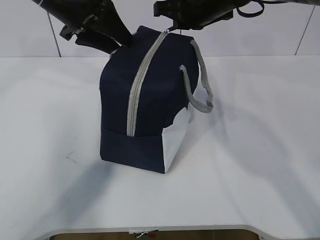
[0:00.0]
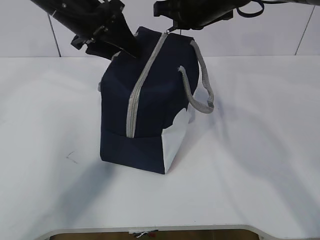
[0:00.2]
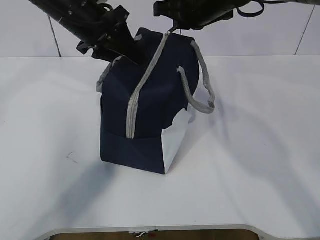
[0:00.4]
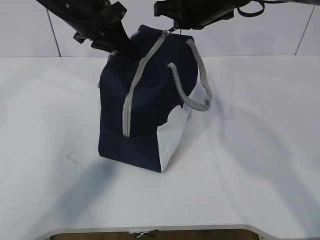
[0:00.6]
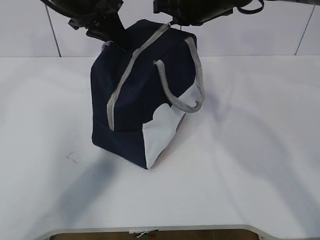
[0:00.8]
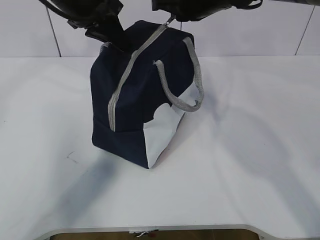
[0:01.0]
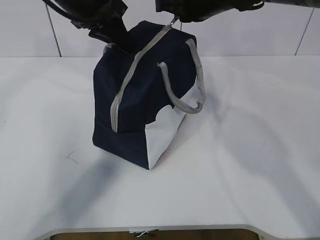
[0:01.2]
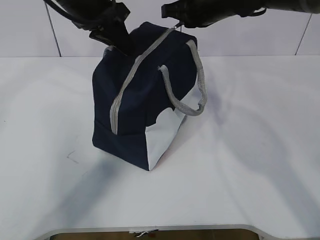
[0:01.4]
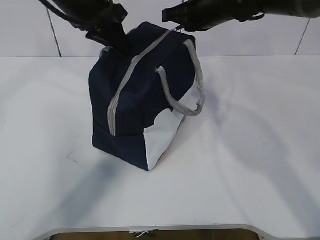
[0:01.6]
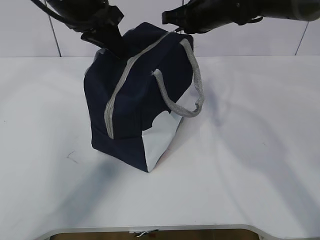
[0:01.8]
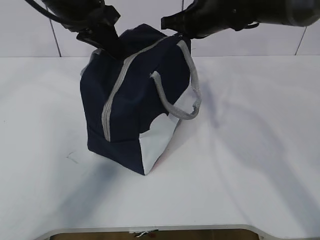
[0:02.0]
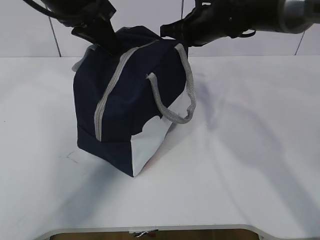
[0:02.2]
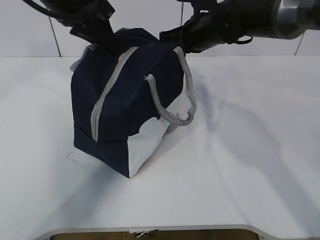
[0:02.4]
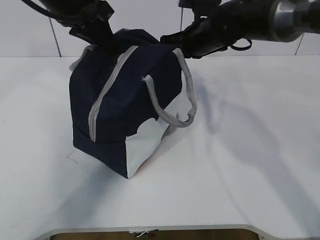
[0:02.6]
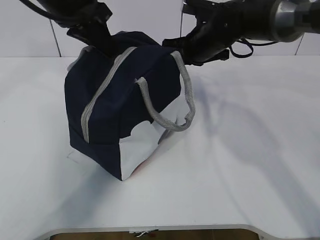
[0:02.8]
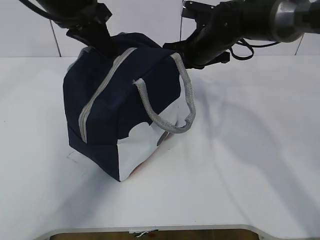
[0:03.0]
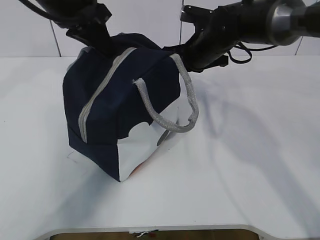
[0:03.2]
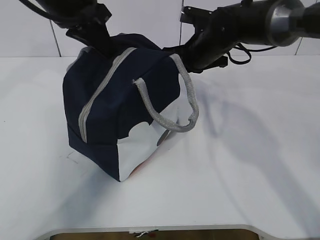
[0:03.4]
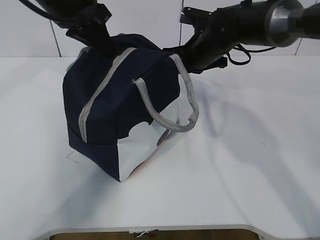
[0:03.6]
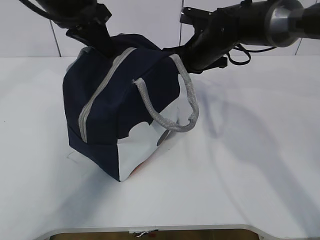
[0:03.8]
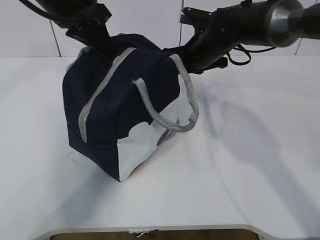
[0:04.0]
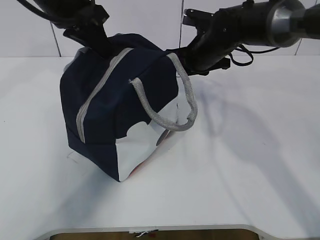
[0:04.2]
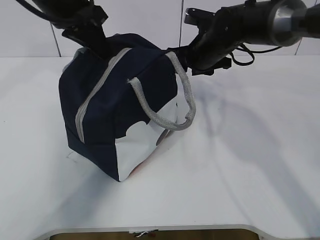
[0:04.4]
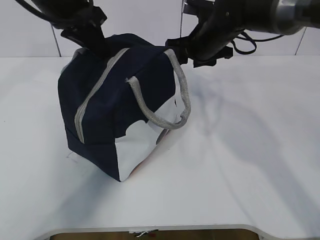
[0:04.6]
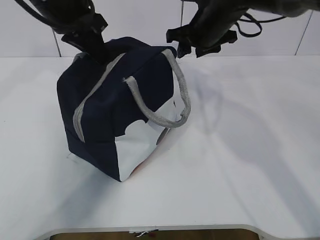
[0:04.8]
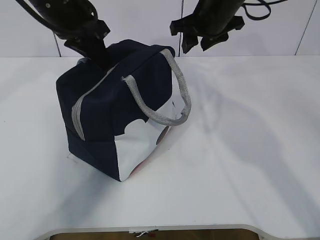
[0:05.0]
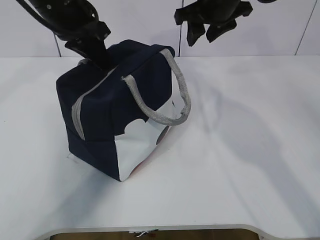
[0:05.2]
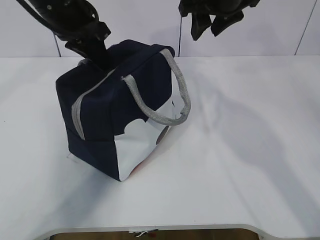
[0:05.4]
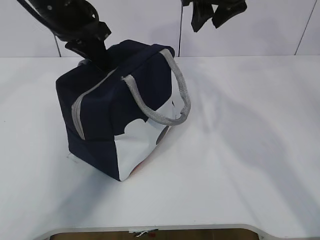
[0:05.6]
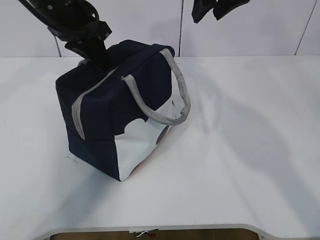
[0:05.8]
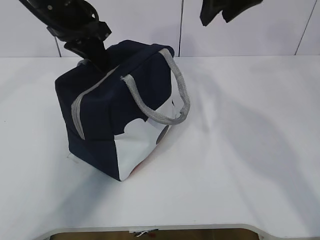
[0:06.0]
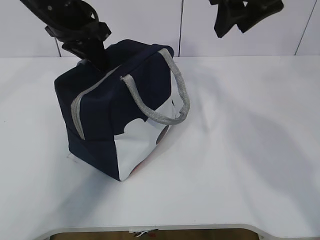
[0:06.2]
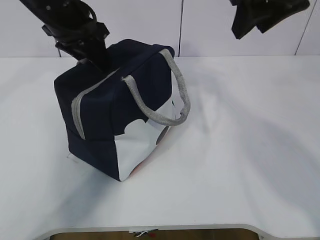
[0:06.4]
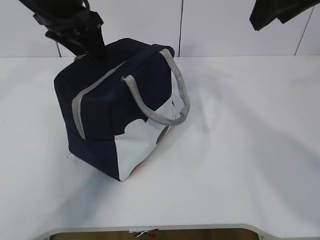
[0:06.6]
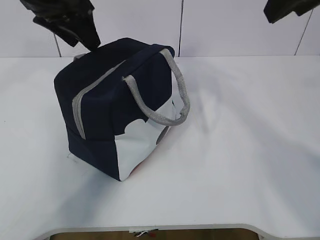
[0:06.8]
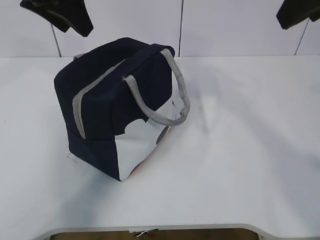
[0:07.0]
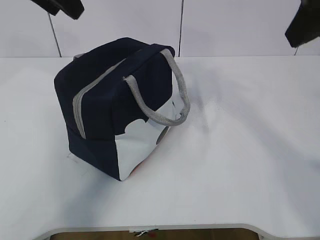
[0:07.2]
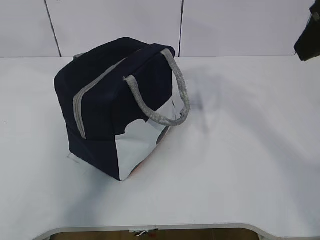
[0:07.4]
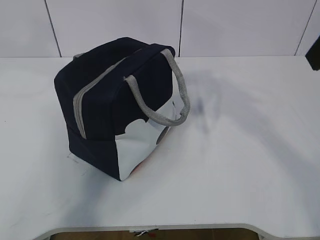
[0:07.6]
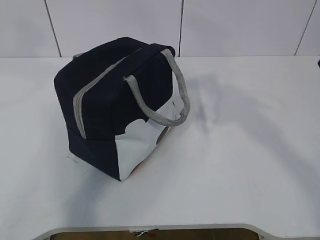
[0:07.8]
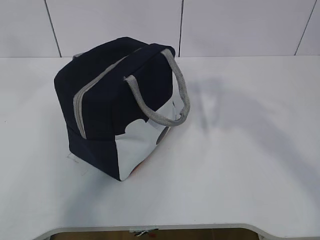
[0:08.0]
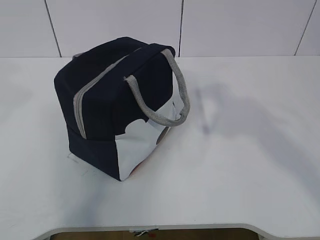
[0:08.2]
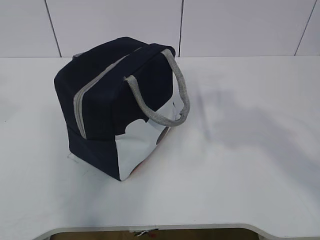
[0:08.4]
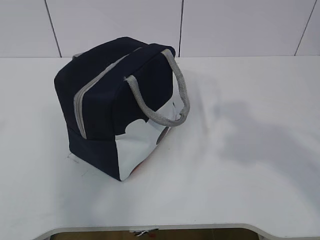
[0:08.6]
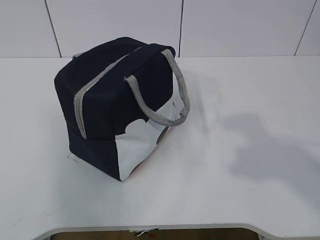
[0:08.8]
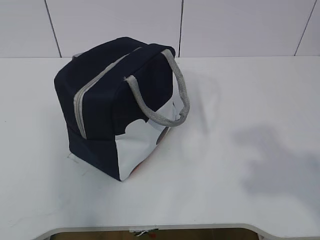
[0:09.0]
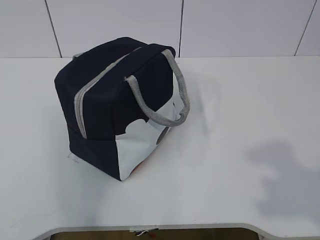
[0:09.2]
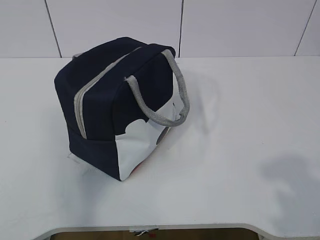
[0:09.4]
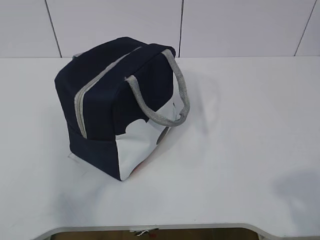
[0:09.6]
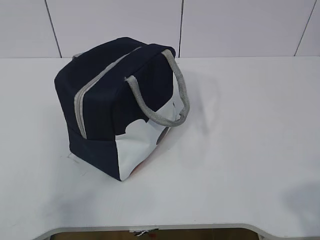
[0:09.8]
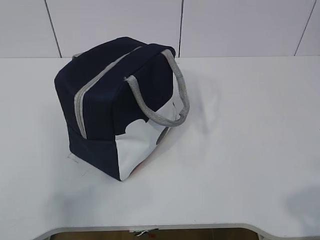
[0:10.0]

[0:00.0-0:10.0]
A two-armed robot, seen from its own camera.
0:00.0 to 0:01.4: The left gripper closes.
0:01.4 to 0:02.8: The right gripper is displaced downward by roughly 5 cm.
0:02.8 to 0:04.2: There are only small adjustments of the grippers.
0:04.2 to 0:05.8: The right gripper moves upward, about 15 cm, and opens up.
0:05.8 to 0:07.2: The right gripper moves backward, approximately 20 cm. Meanwhile the left gripper goes some 10 cm upward, and opens up.
0:07.2 to 0:08.6: The right gripper heads backward, covering approximately 15 cm. Meanwhile the left gripper is displaced backward and to the left by about 25 cm.

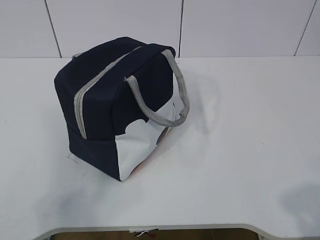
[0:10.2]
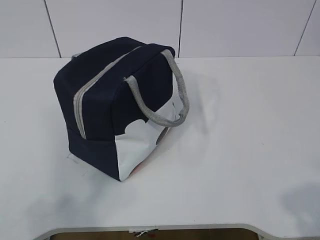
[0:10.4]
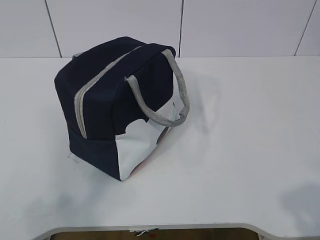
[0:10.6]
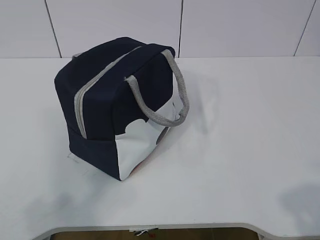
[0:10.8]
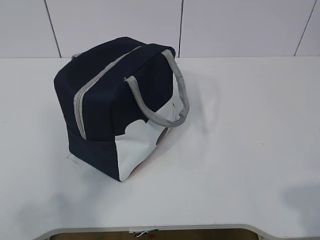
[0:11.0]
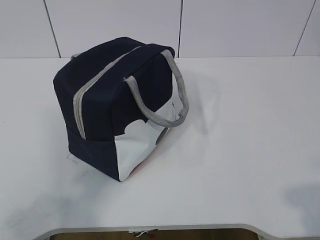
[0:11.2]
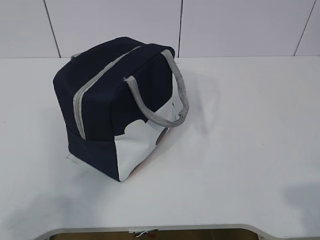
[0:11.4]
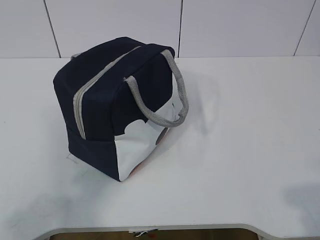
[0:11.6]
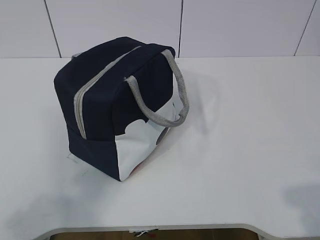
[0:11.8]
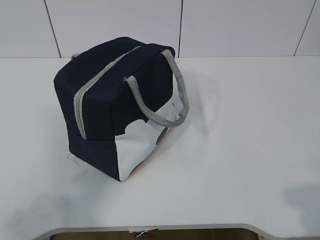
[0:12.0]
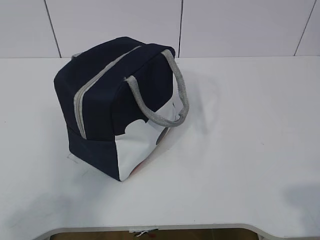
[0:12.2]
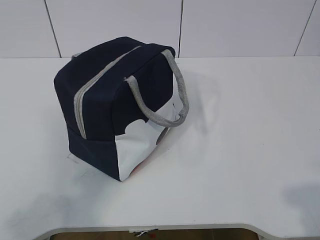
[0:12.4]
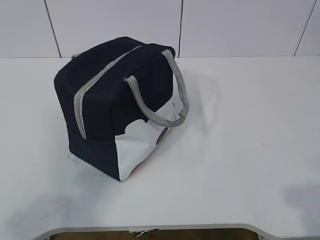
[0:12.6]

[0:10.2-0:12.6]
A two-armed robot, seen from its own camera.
0:11.4 to 0:12.6: The two grippers keep their place.
